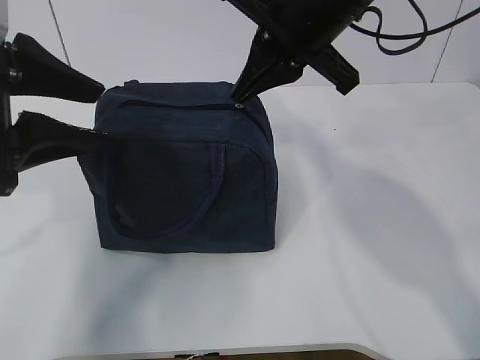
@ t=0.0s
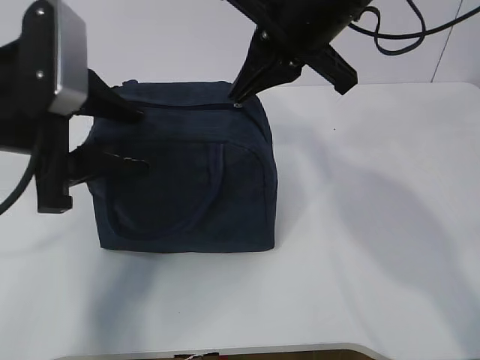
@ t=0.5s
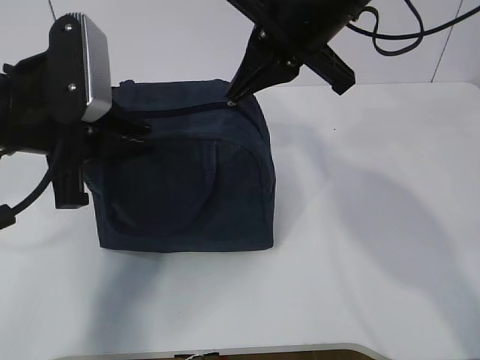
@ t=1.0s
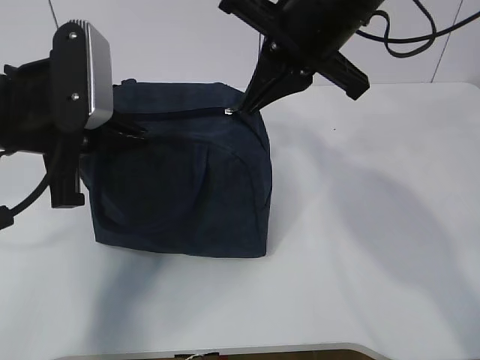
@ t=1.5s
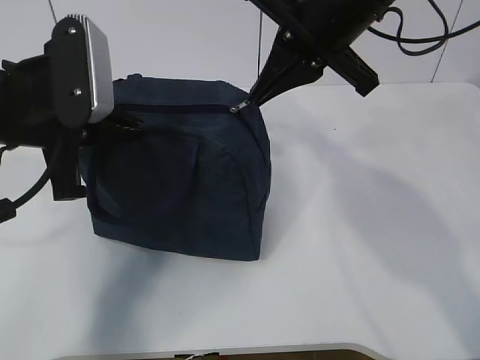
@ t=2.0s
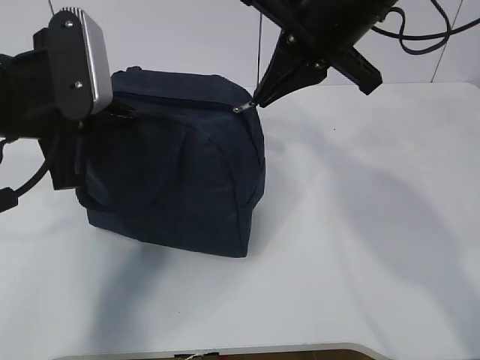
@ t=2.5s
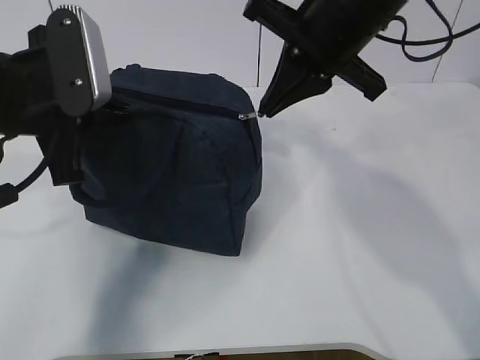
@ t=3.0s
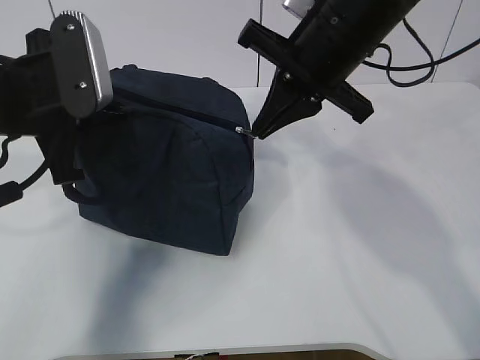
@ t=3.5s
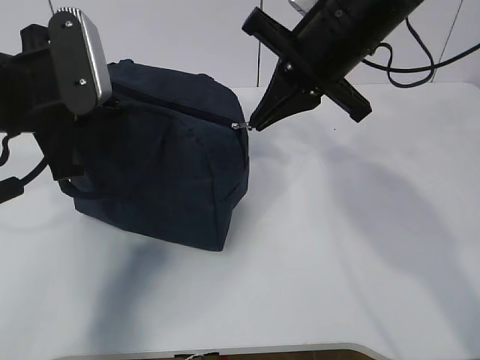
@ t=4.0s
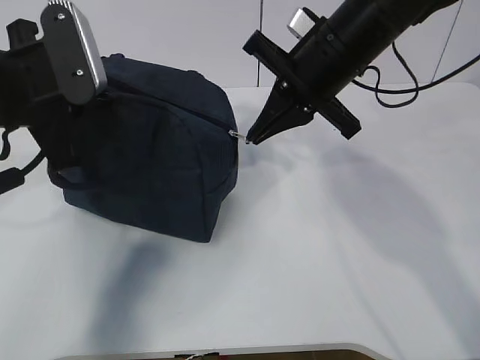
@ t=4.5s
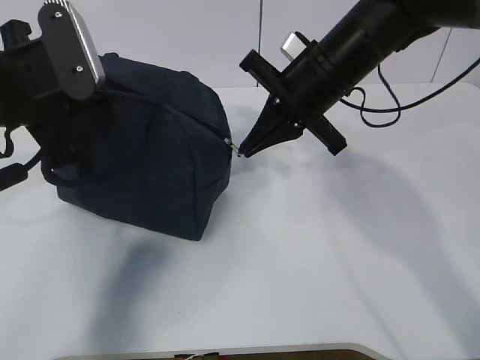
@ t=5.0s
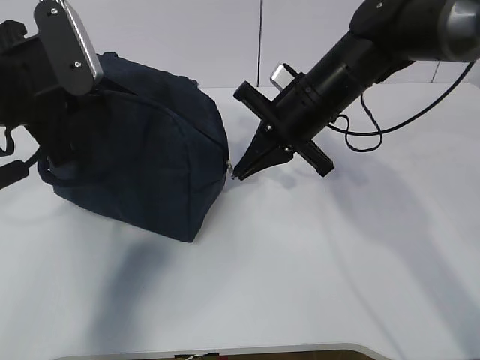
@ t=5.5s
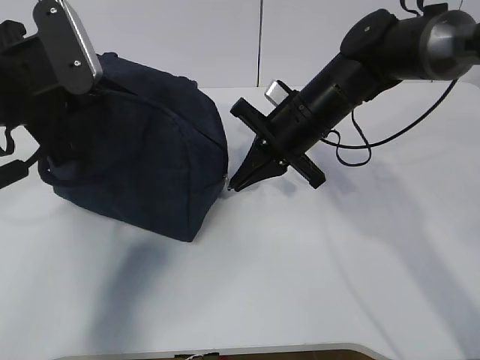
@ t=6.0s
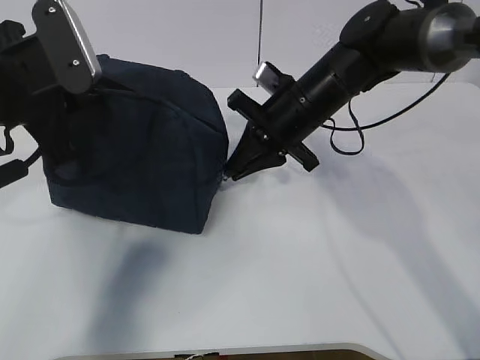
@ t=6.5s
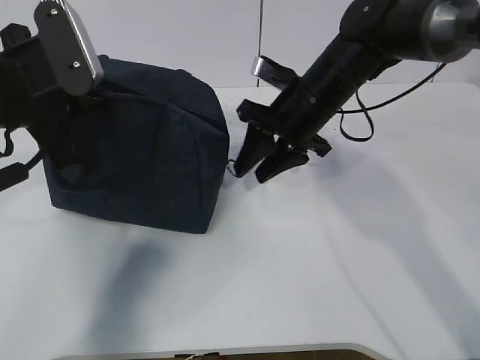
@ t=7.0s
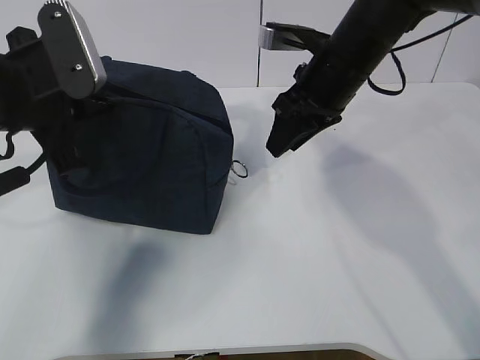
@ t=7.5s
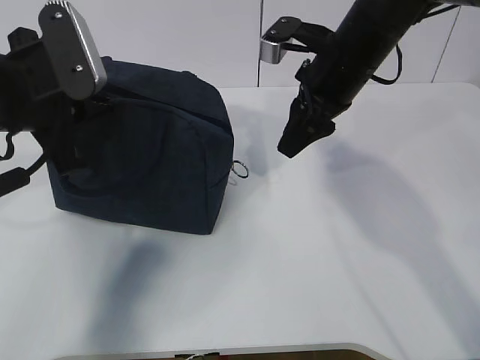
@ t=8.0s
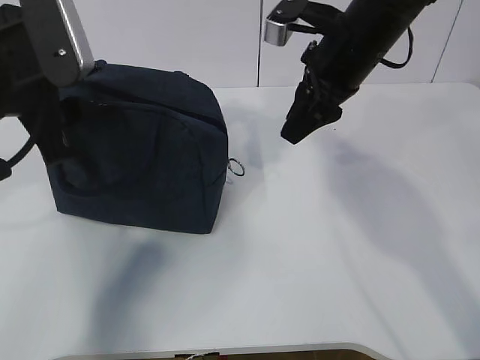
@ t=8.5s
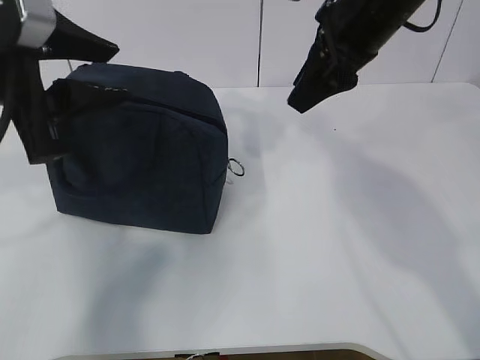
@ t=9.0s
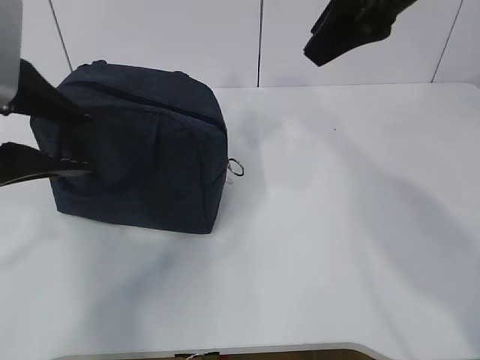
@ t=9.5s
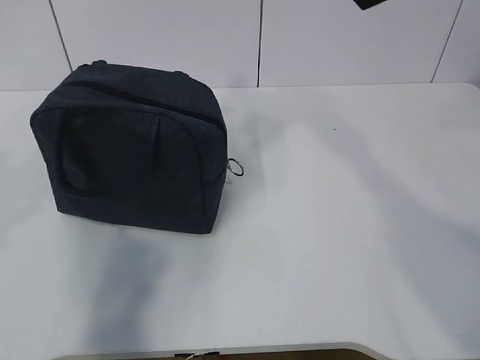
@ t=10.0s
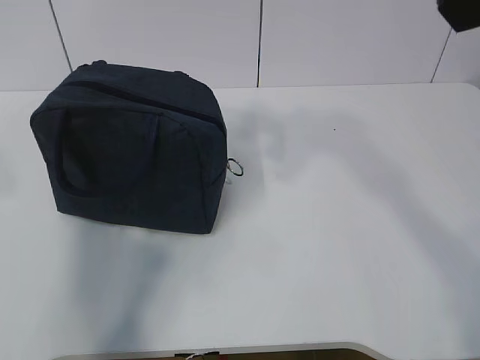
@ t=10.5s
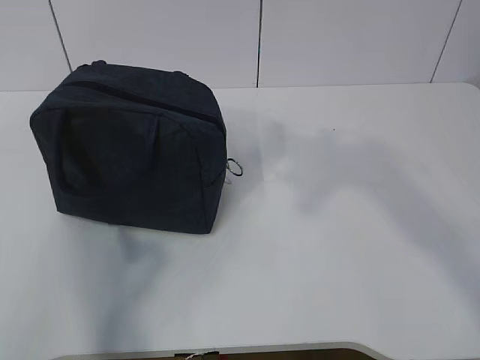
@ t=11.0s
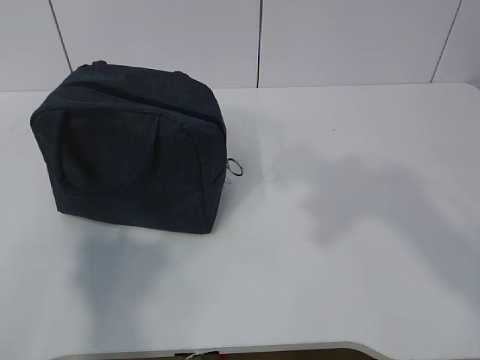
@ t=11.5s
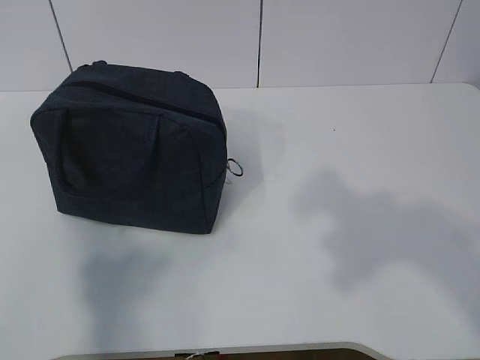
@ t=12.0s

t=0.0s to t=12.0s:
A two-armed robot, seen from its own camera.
t=0.0s to t=2.0s: The left gripper changes place by roughly 5 cm, and closes up.
t=2.0s to t=4.0s: The grippers move only a little.
t=4.0s to t=6.0s: The right gripper moves downward and forward, about 15 cm.
t=6.0s to t=8.0s: The right gripper travels upward by approximately 5 cm, and opens up.
t=8.0s to t=10.0s: The left gripper moves backward and upward, approximately 15 cm, and opens its fingers. Meanwhile the right gripper shifts roughly 20 cm upward and backward.
t=10.0s to t=12.0s: The left gripper is displaced backward and to the left by some 20 cm; the right gripper travels backward by about 20 cm.

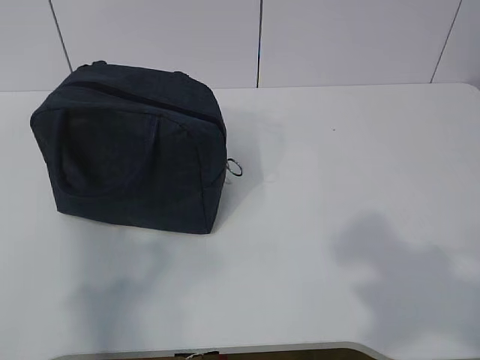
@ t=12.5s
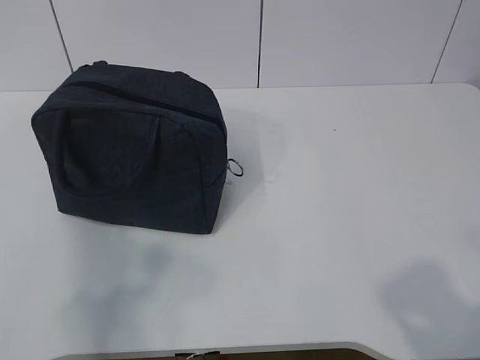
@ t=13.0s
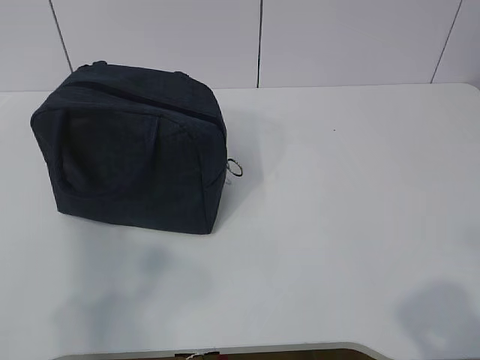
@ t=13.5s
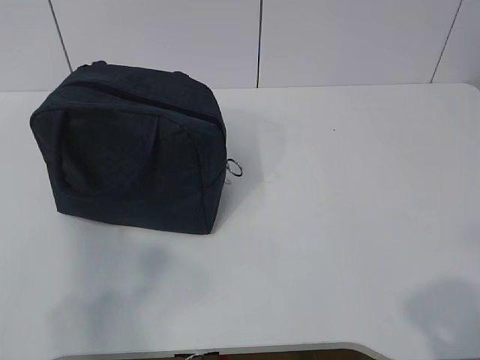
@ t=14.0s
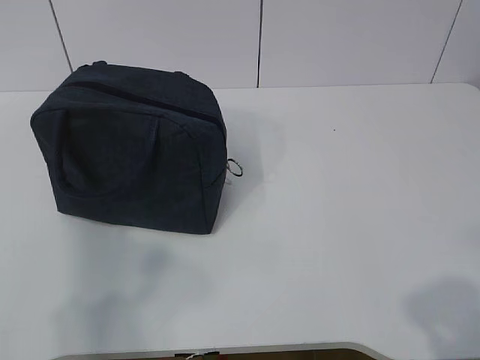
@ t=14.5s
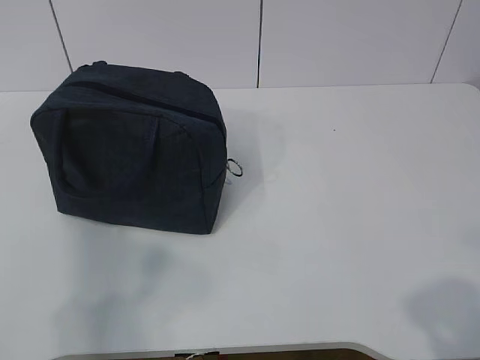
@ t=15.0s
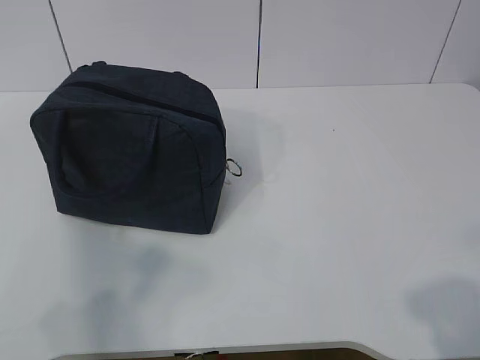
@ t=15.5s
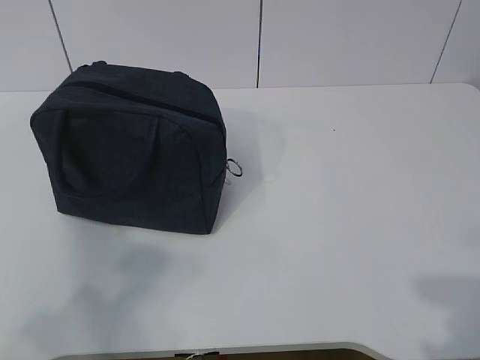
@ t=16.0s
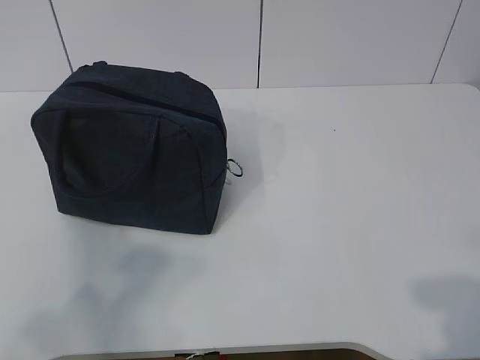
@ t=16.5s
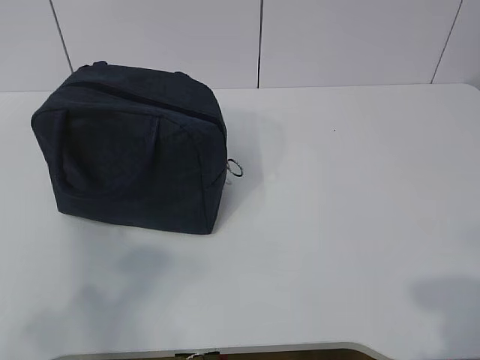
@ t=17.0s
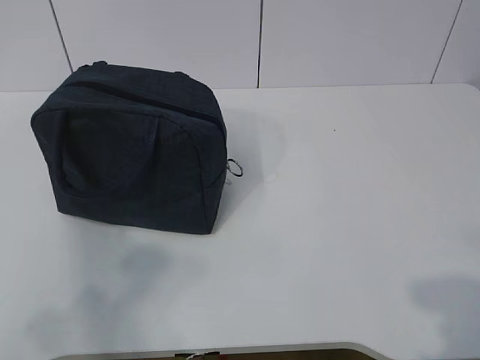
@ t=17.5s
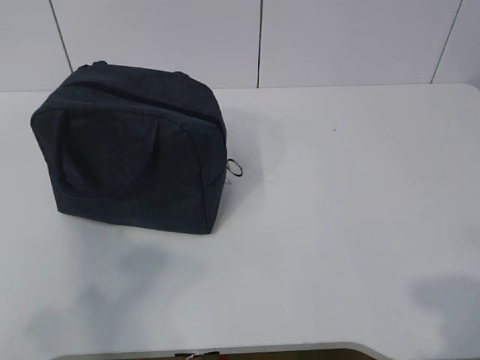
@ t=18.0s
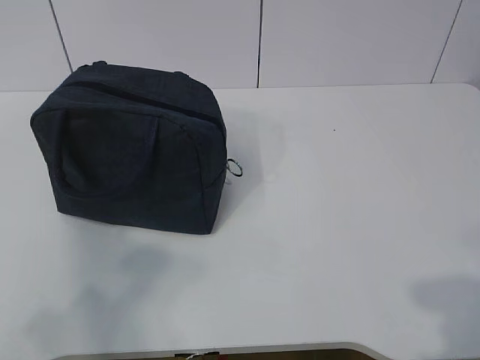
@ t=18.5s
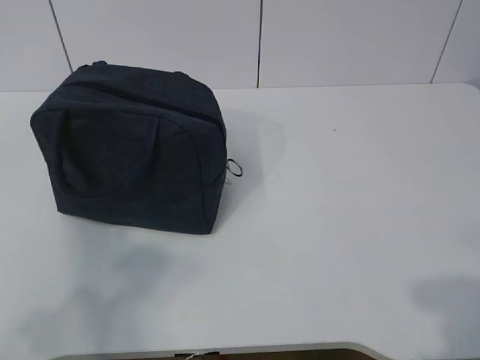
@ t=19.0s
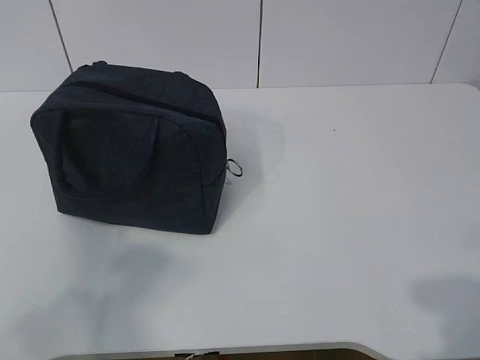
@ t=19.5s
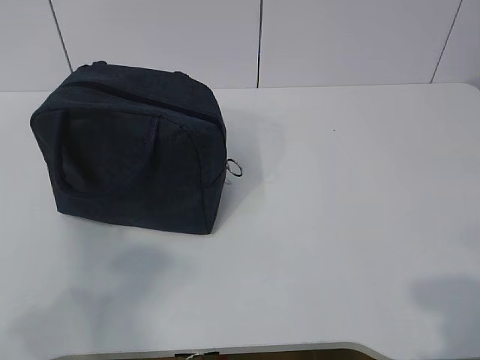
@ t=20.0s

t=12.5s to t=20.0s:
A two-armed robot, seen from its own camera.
t=12.5s to t=14.5s: The right gripper shifts about 10 cm downward.
t=16.5s to t=18.0s: The two grippers keep their place.
